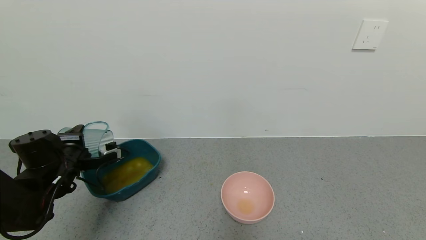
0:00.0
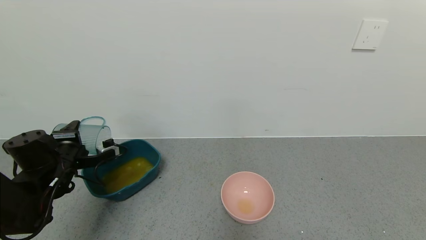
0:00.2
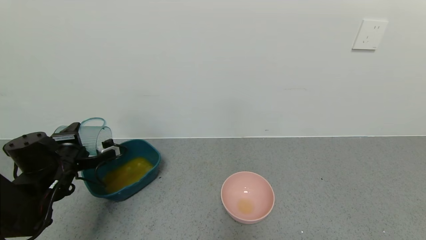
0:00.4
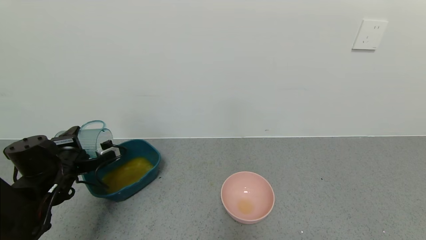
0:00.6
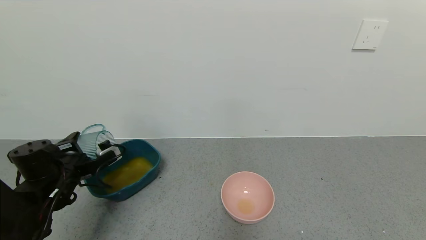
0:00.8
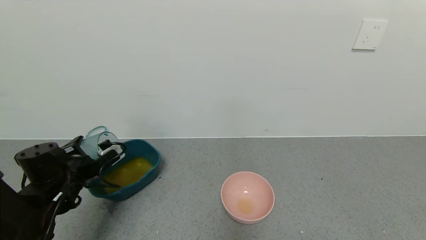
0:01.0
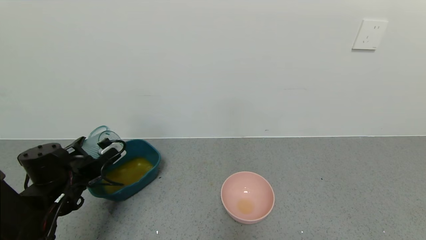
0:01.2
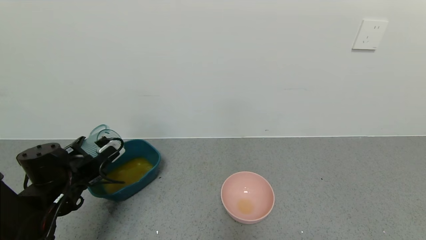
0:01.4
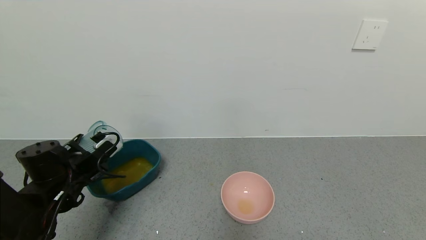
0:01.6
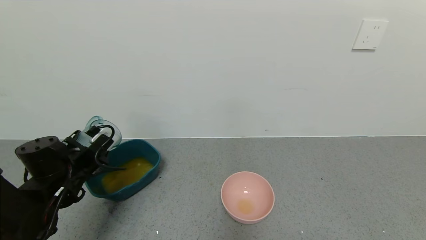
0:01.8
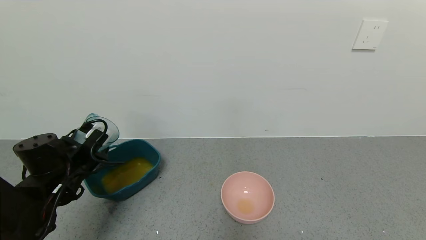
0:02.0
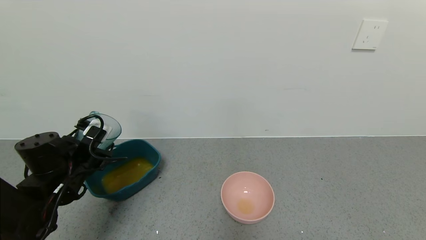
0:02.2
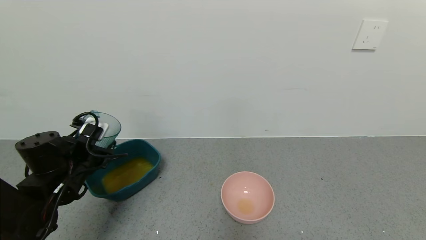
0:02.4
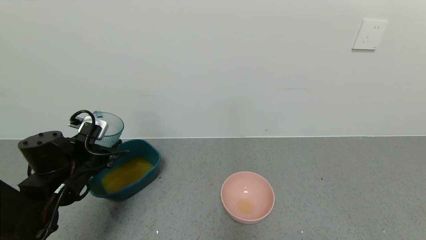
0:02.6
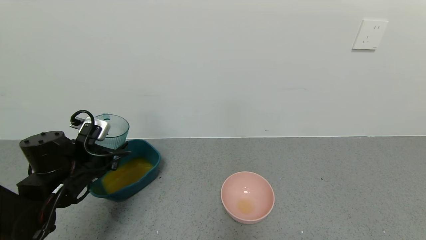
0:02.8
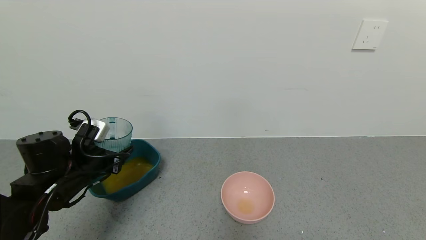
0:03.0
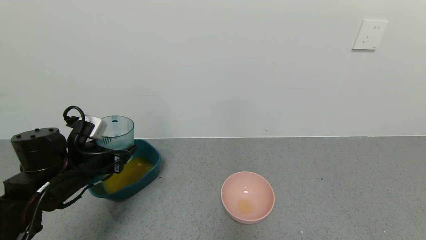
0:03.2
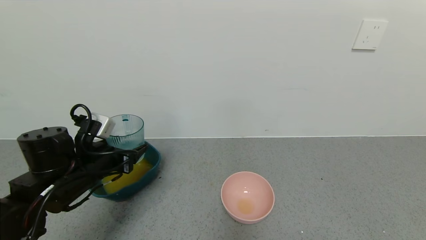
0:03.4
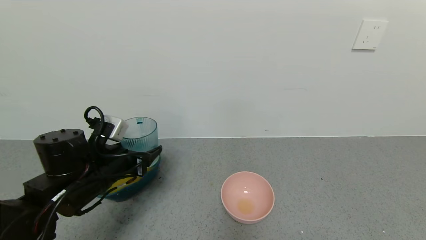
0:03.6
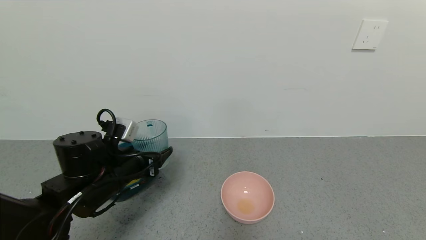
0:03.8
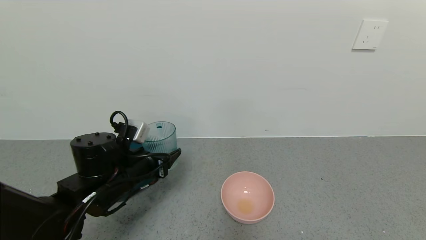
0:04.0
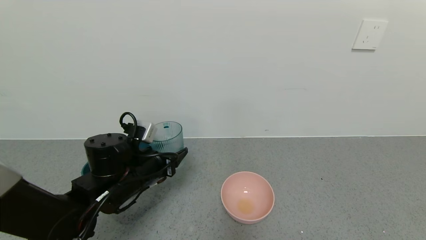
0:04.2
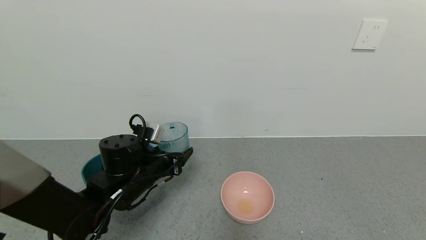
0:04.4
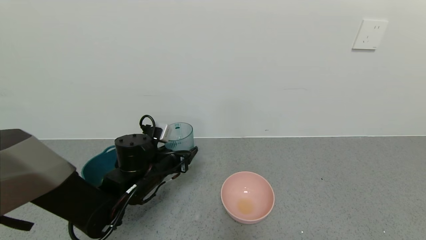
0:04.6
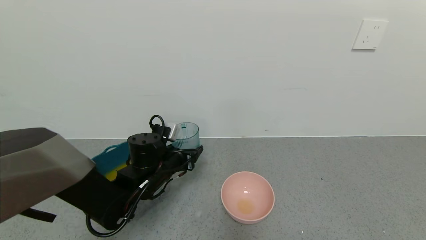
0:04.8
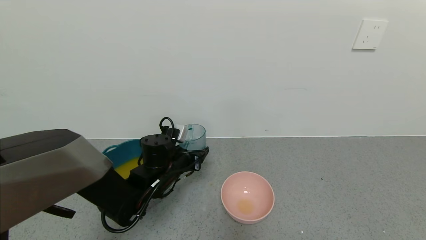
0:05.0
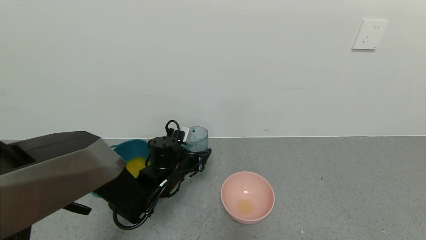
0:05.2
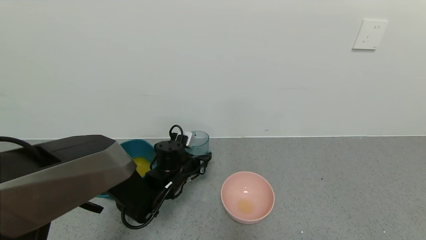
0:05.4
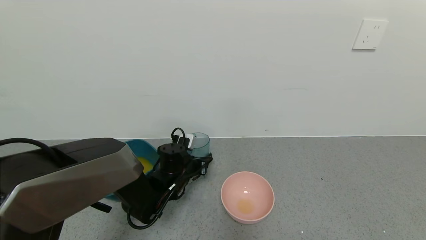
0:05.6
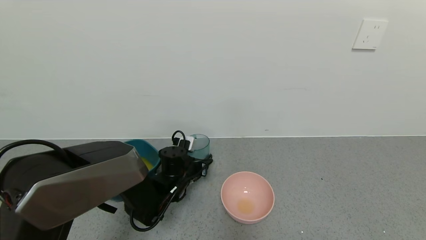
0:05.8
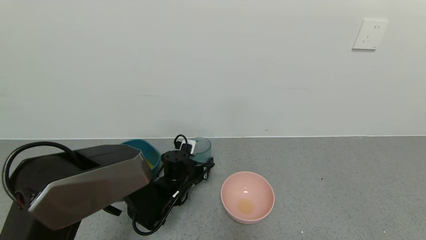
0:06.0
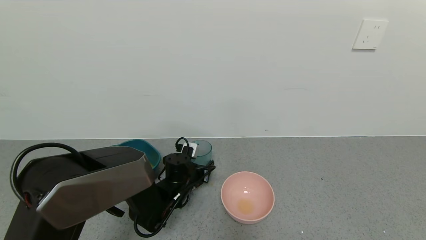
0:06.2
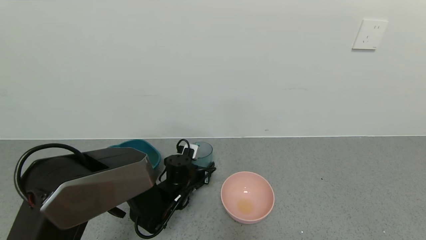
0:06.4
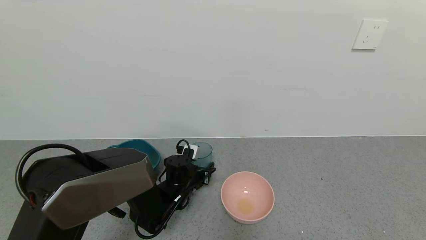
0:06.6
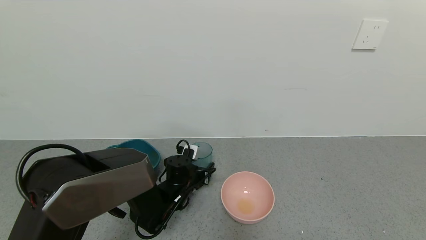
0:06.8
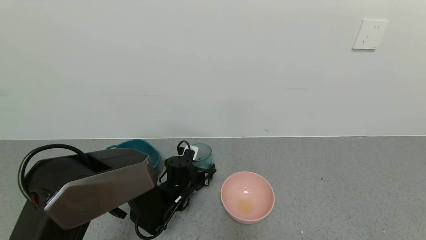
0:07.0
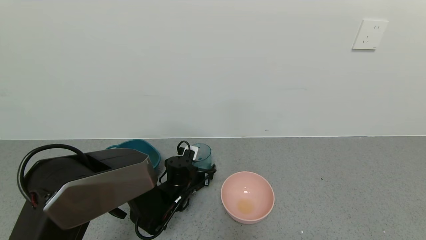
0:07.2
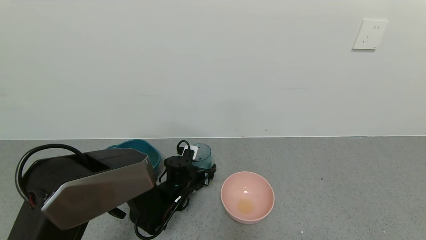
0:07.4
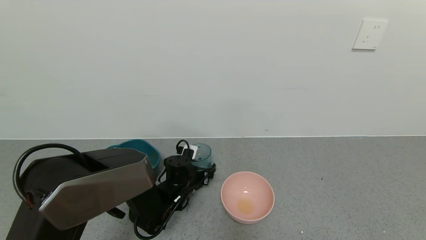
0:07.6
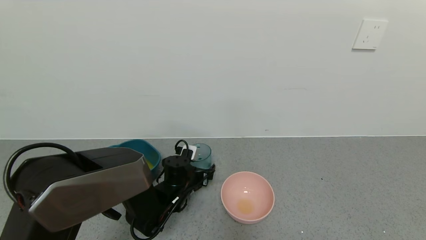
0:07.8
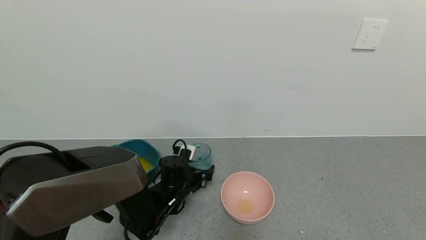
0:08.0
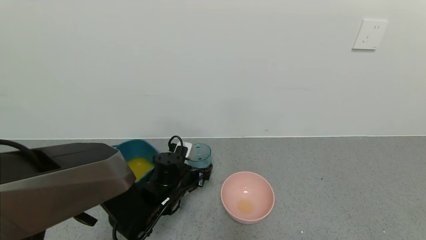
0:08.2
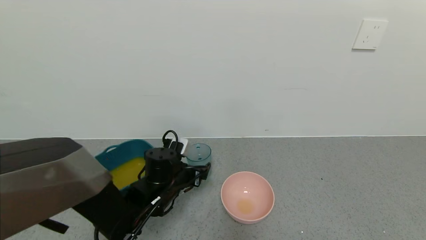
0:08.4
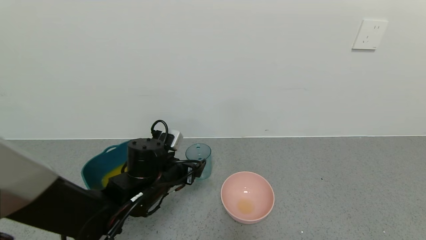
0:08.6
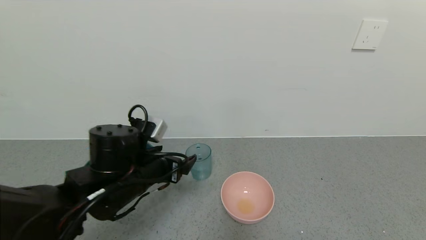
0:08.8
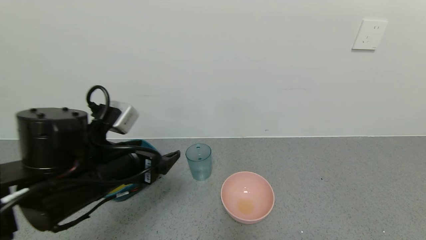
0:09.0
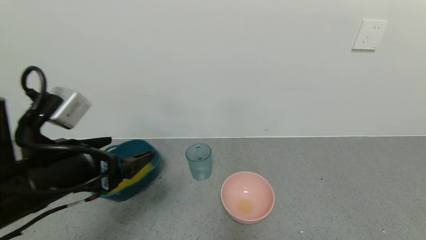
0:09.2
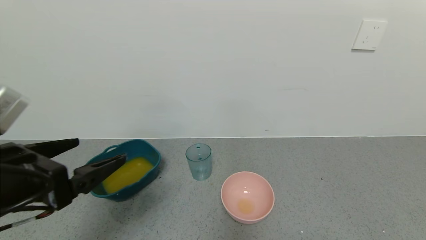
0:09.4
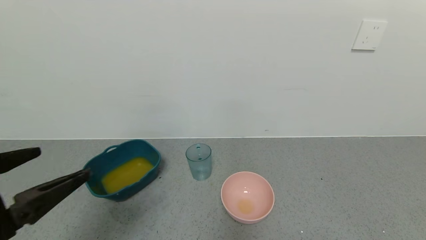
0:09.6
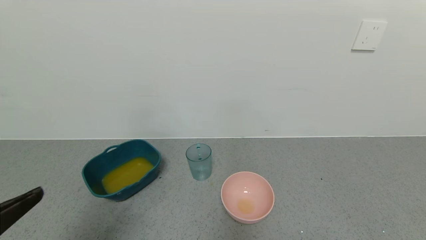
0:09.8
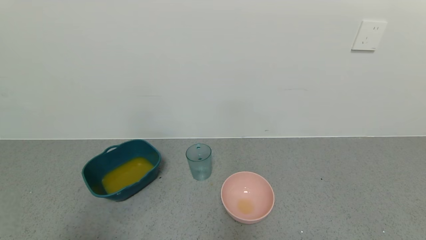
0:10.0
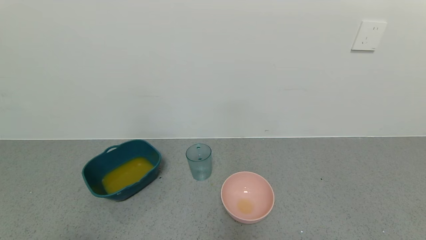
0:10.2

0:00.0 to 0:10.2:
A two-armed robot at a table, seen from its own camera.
Task of the whole recording: use a gripper to pick up the cup and pour the liquid into a bowl or tray.
Step, 0:00.0 to 0:08.6: Place the glass cup with the left gripper.
0:03.0 to 0:04.4: The left gripper shifts approximately 10 cm to the right.
0:04.4 to 0:05.8: The left gripper travels downward, forward and to the right by approximately 10 cm.
0:05.8 to 0:07.2: The left gripper opens.
0:07.2 to 0:08.8: The left gripper moves upward and backward, approximately 20 cm, and opens its fingers.
0:08.8 to 0:10.2: The left gripper heads backward and to the left, covering about 30 cm.
